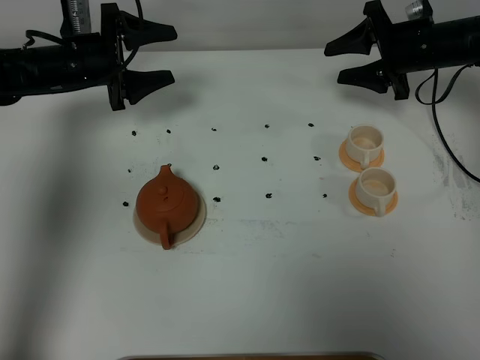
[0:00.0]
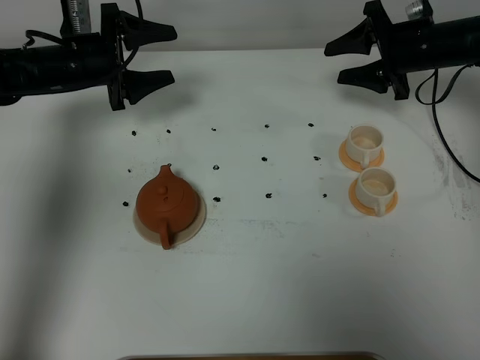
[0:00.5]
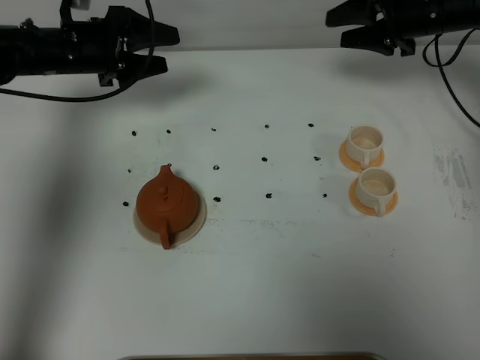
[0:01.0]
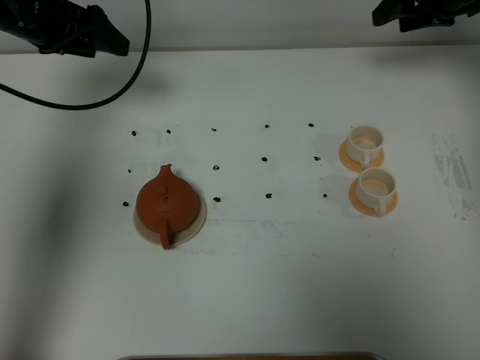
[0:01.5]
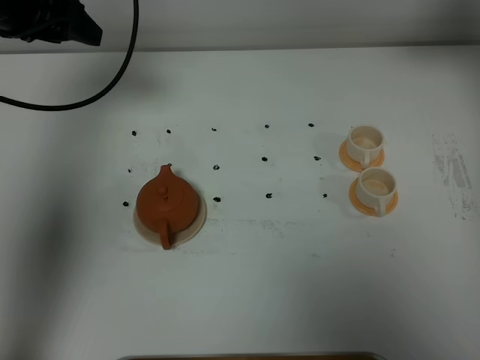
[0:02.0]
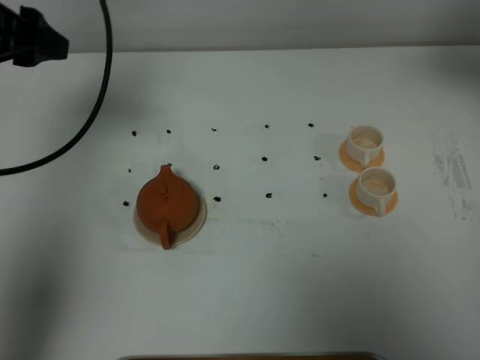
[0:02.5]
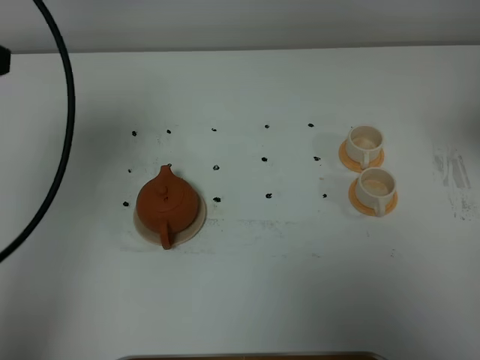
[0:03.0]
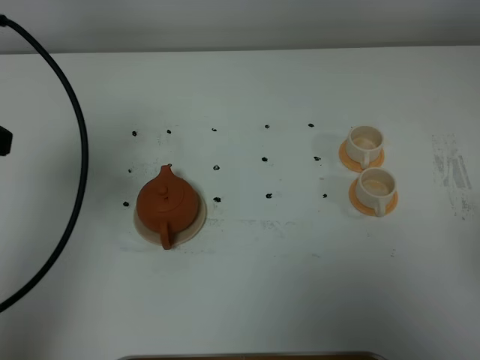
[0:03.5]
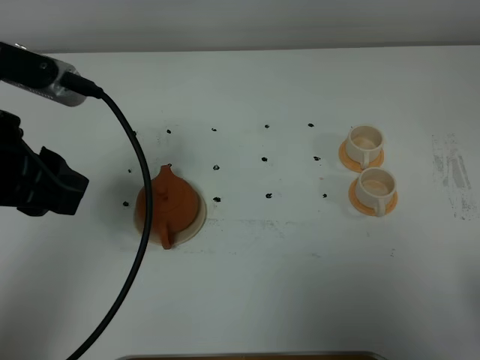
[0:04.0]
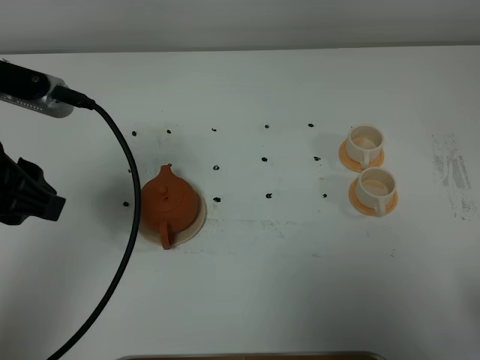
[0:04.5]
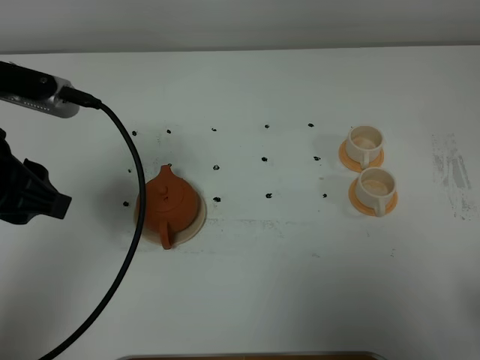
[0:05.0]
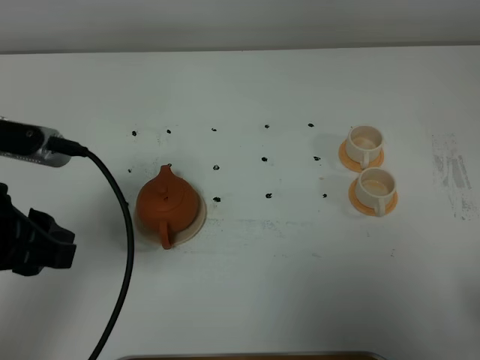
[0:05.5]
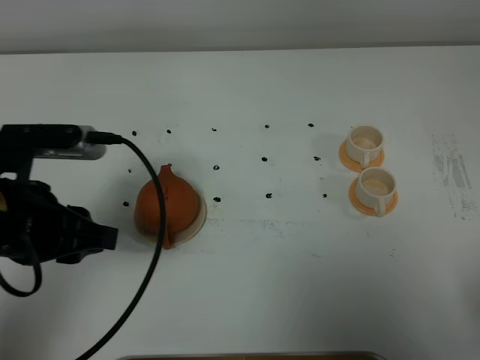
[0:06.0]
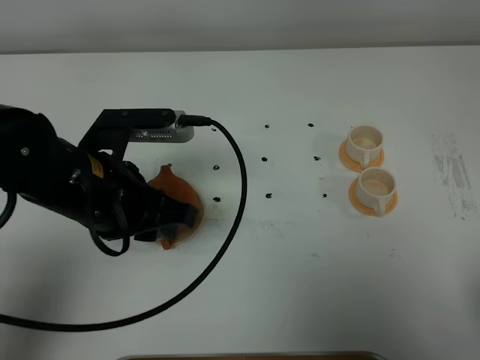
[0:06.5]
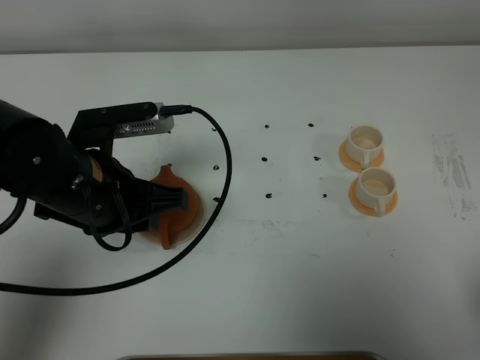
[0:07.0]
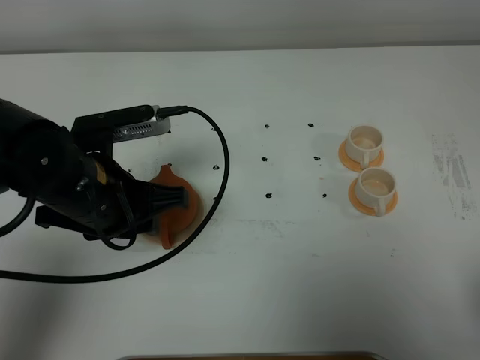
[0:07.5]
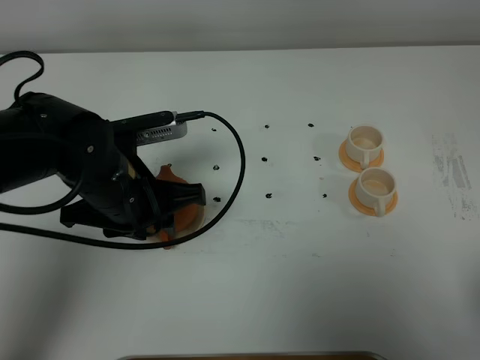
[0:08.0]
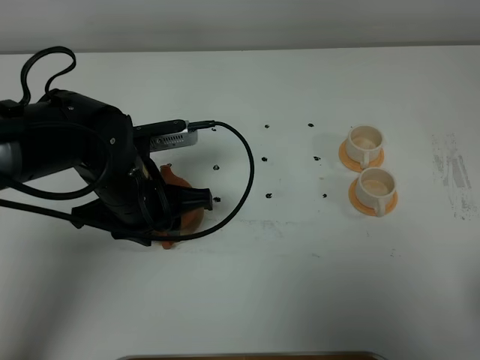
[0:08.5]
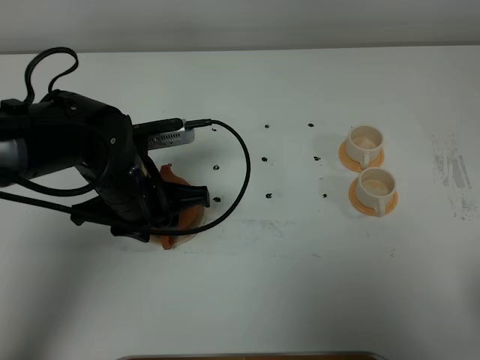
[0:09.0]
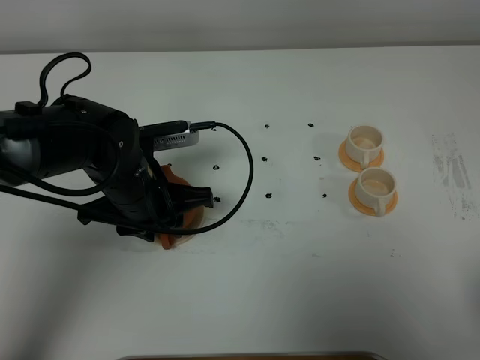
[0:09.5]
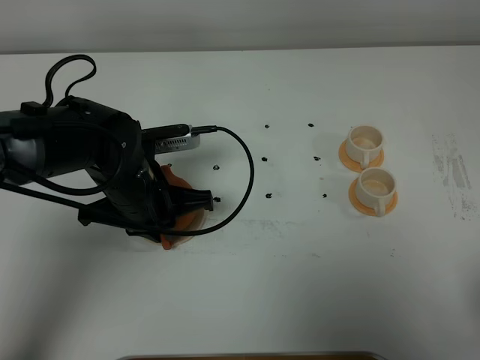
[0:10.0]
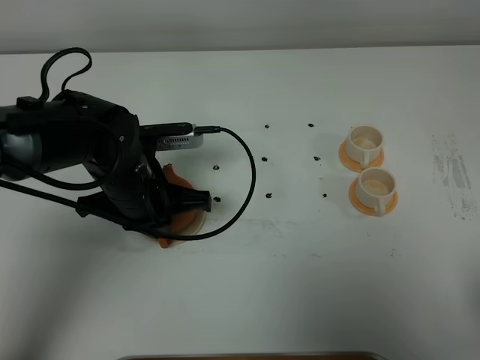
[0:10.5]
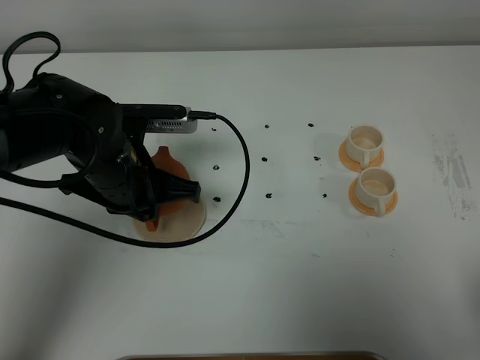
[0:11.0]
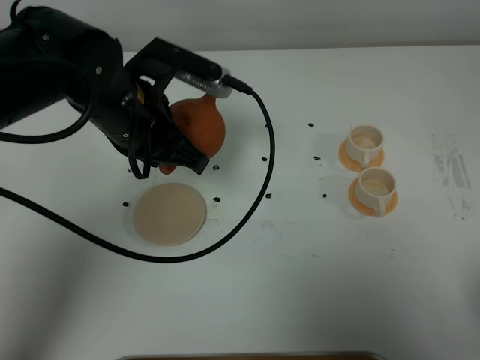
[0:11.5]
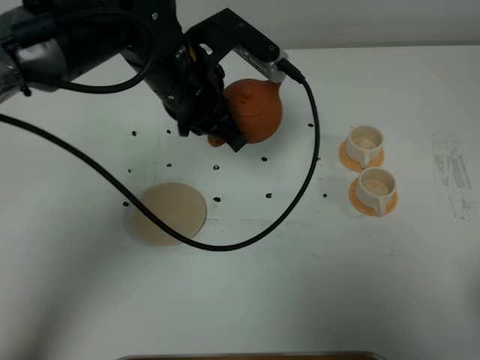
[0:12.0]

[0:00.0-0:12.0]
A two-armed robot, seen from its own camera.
Task of the whole recording: grasp the brown teapot and pour the tea into the two white teacups one by one, put the brown teapot back in its original place.
Step, 0.0 to 10.5 s: Pick up the teapot with the left gripper.
0.0 to 2.0 s: Both grippers travel together upward, approximately 15 cm.
2.0 to 4.0 s: The right gripper shifts approximately 40 cm backward; the left gripper heads backward, covering approximately 20 cm.
4.0 to 6.0 s: The left gripper heads downward, covering roughly 10 cm.
6.0 to 8.0 s: The left gripper moves to the right, forward and downward, approximately 10 cm.
8.0 to 10.0 s: The left gripper closes its fingers.
10.0 to 12.0 s: The left gripper heads upward, to the right and forward, covering roughly 15 cm.

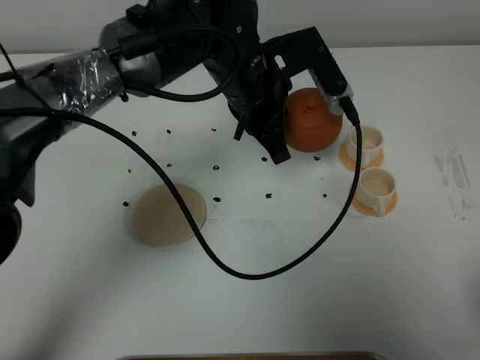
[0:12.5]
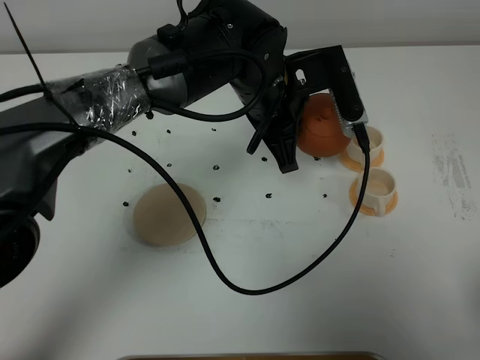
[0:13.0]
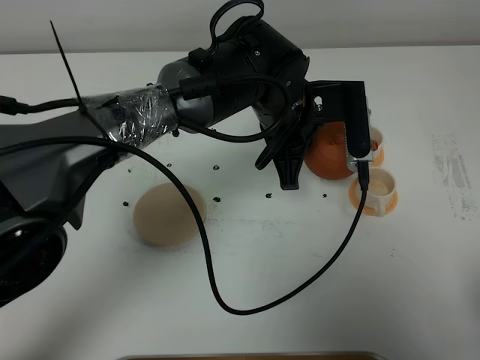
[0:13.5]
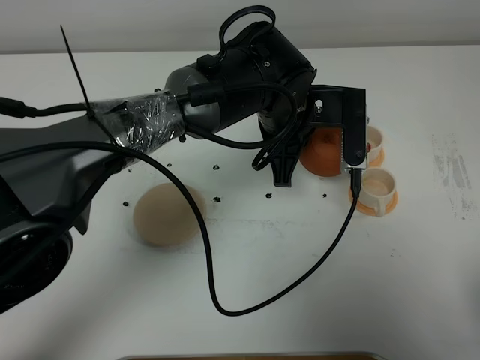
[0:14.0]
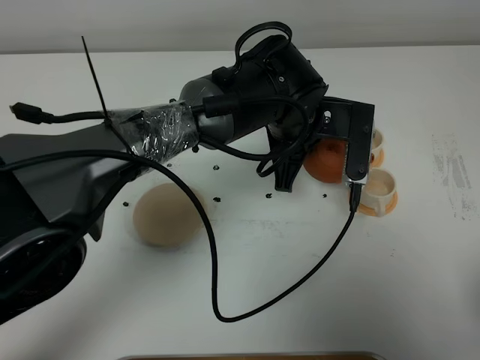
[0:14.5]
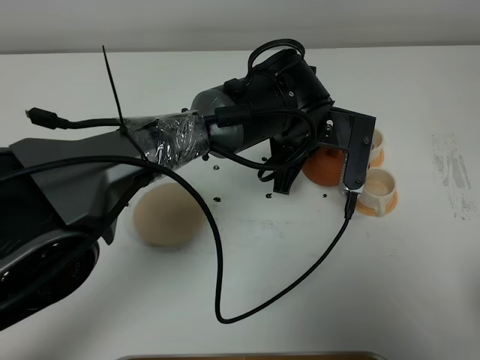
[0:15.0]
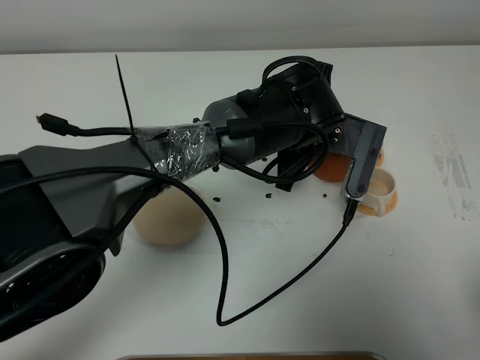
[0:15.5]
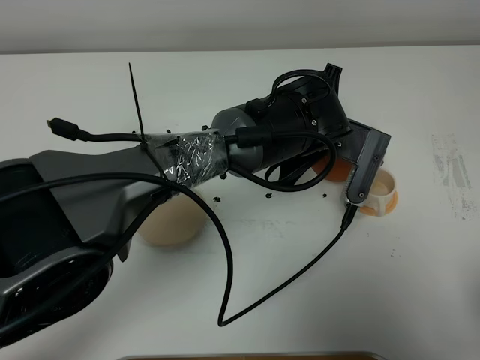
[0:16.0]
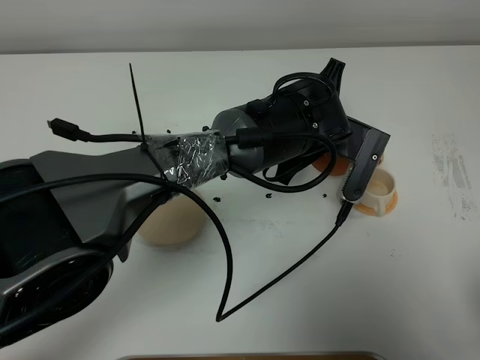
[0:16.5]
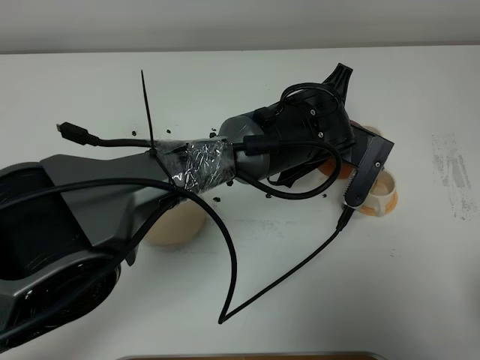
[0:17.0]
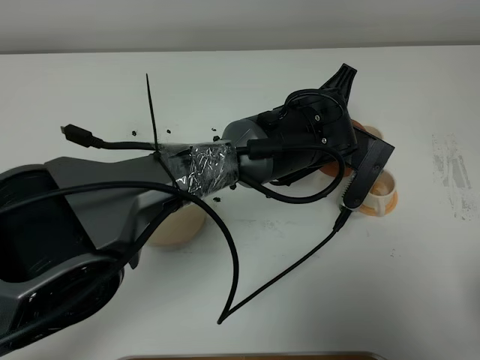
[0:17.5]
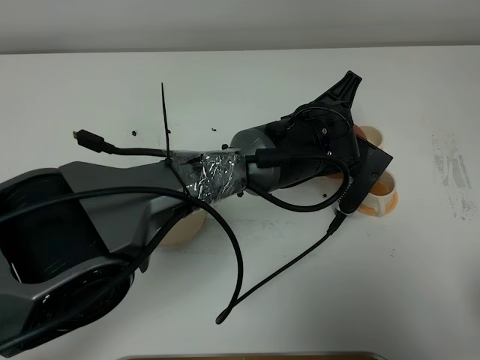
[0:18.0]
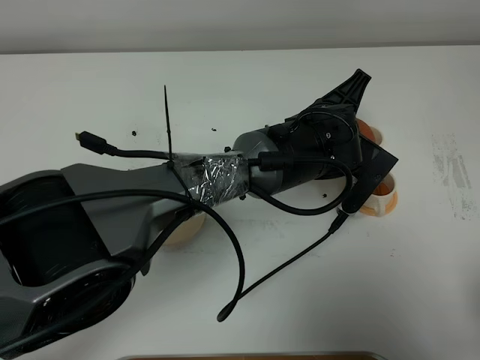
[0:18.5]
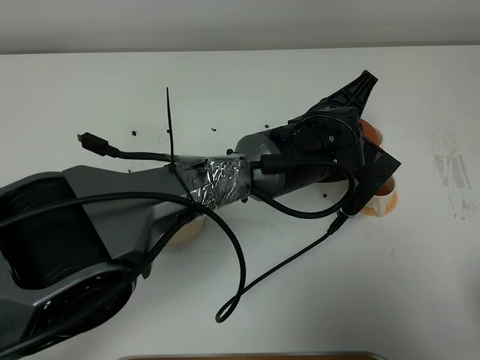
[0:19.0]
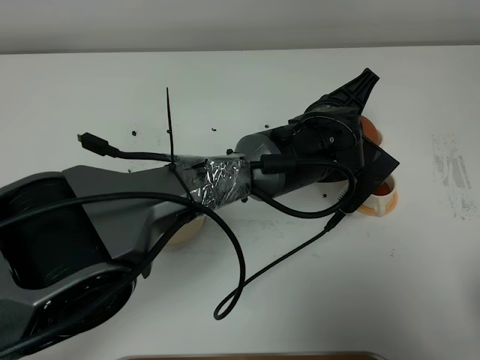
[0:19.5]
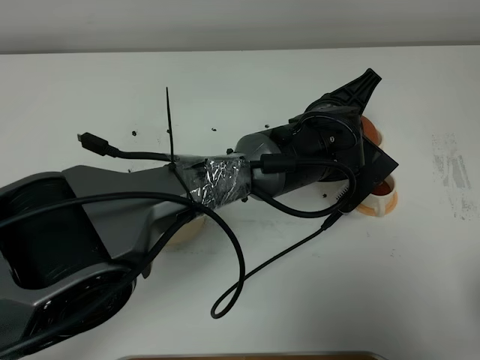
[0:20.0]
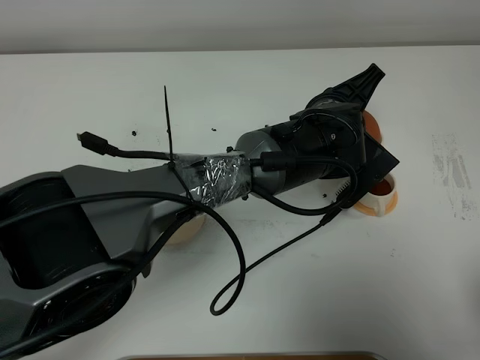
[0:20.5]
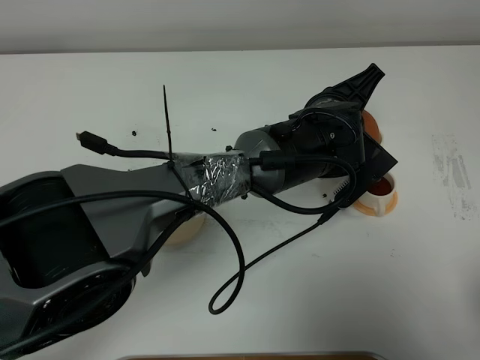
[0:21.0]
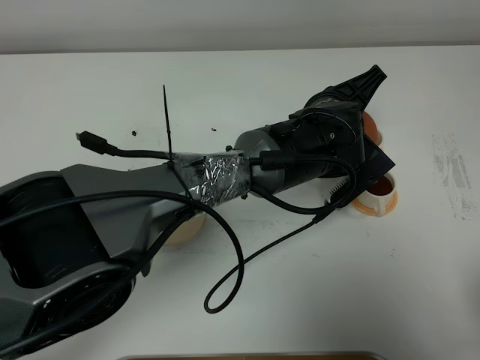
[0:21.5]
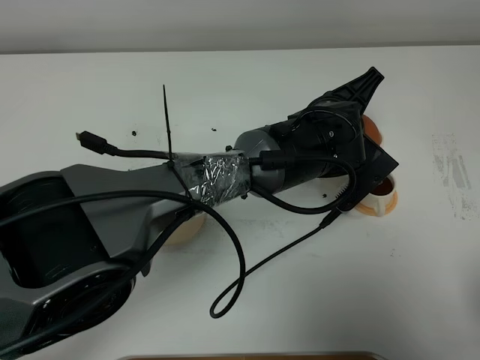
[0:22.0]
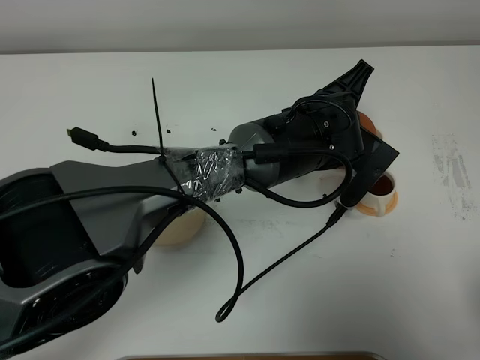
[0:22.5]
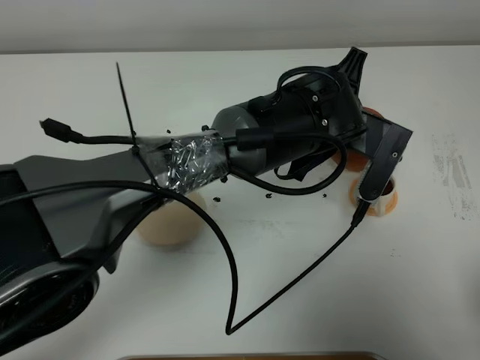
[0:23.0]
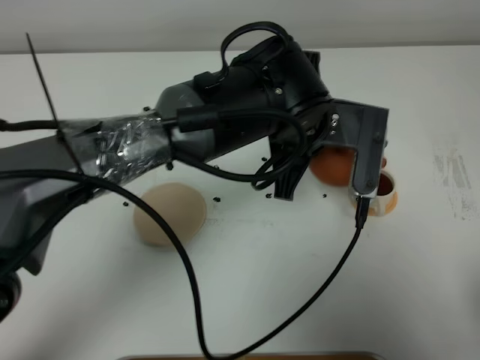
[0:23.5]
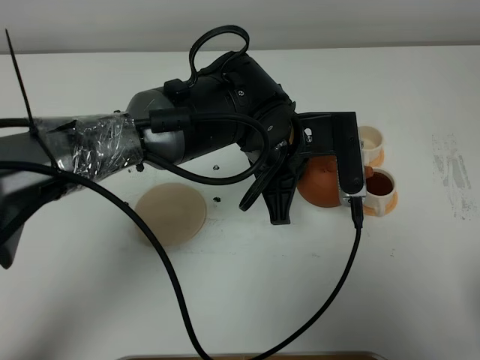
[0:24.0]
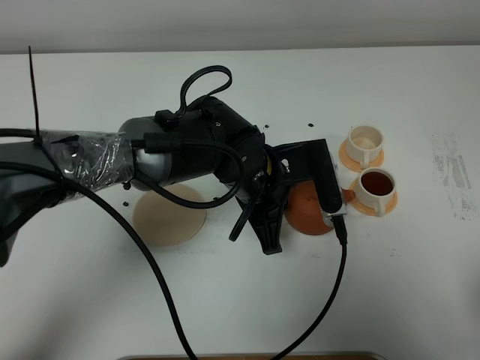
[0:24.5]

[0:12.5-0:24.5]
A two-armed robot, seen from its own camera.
Task of the whole recording: grasp the brown teapot and pour the tea into the two white teacups one by one, put the brown teapot back in its original place.
Step, 12.5 to 22.5 s: Pour tea into the teacup with the left gripper.
12.5 to 14.5 s: The left gripper goes approximately 5 cm to the right.
18.5 to 22.5 s: There are only small adjustments of the grippers.
22.5 to 24.5 s: The left gripper goes some 10 cm to the left.

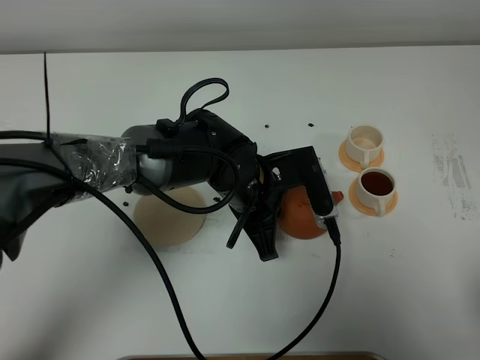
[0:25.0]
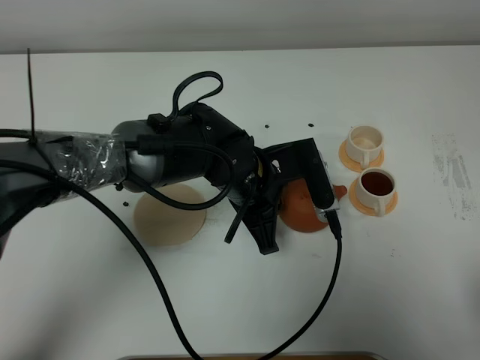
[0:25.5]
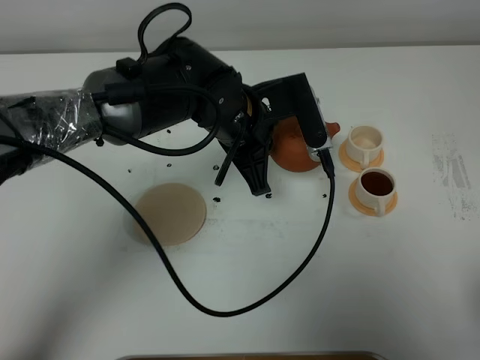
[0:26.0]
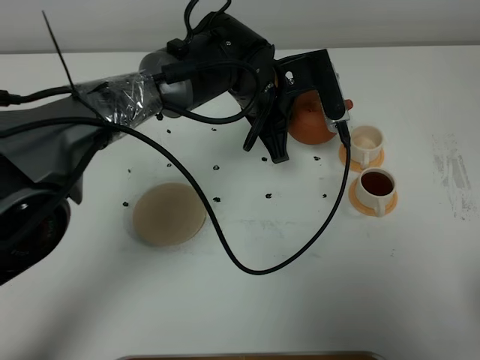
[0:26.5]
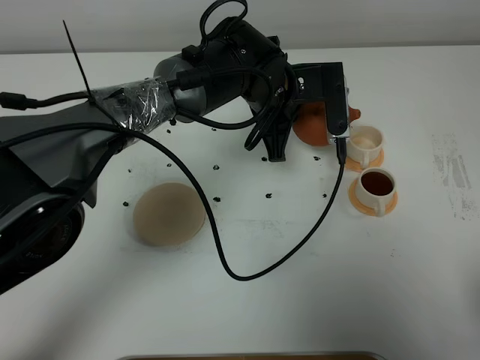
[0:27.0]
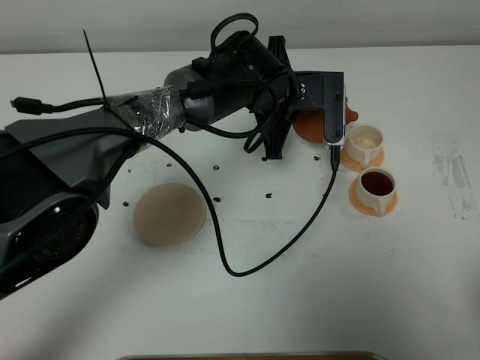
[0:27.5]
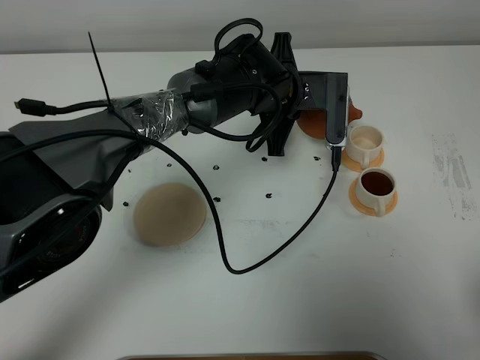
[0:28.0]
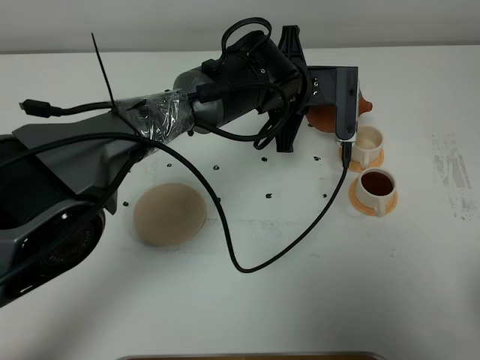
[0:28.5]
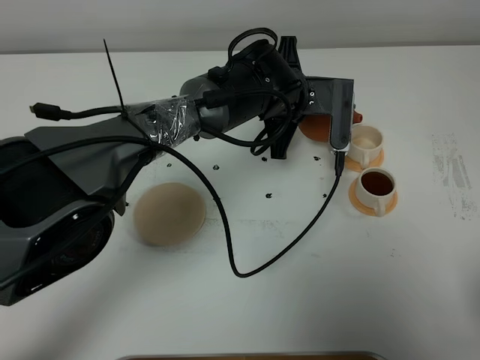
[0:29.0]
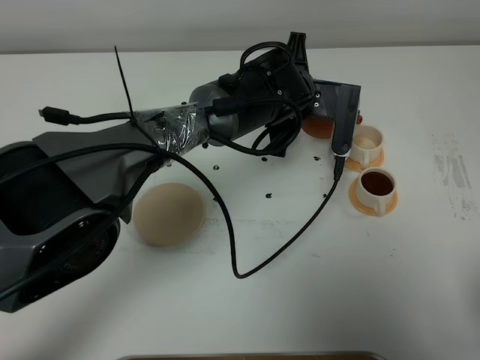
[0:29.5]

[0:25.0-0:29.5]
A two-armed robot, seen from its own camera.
Task of the whole recording: grasp the brown teapot and pour the tea into the two white teacups one by one, put the brown teapot back in its original place.
25.0 to 27.0 s: The left gripper travels forward and upward by some 10 cm.
